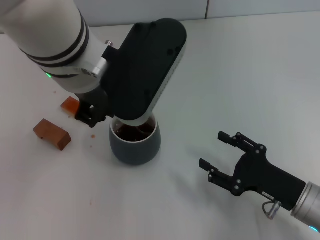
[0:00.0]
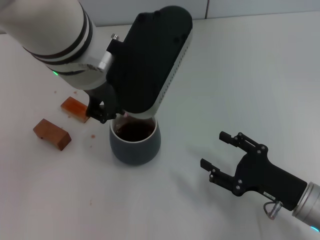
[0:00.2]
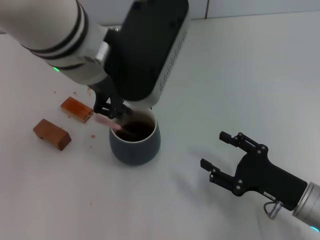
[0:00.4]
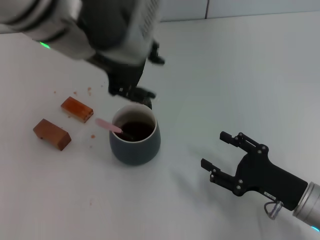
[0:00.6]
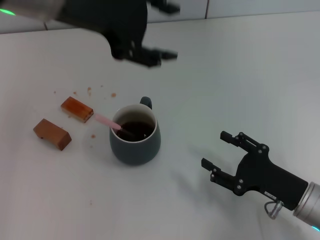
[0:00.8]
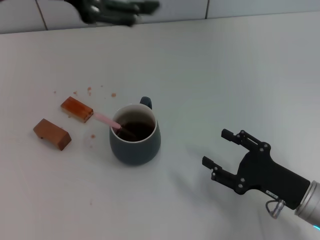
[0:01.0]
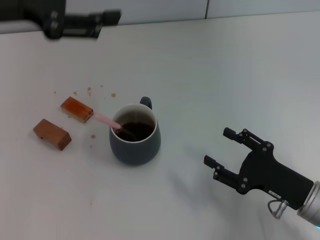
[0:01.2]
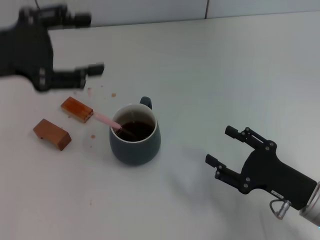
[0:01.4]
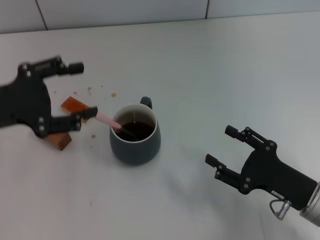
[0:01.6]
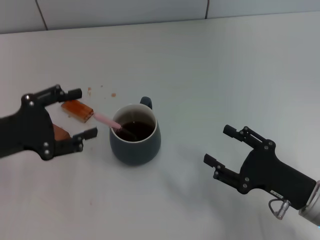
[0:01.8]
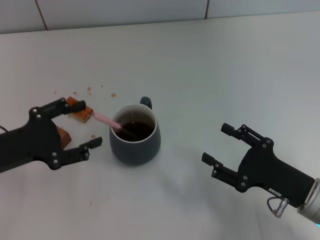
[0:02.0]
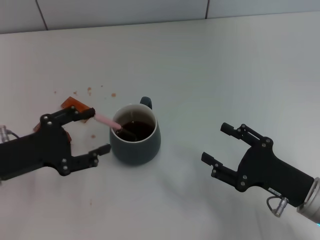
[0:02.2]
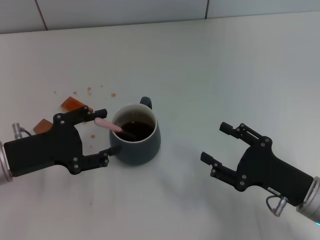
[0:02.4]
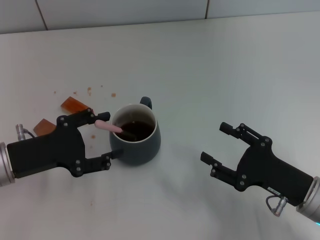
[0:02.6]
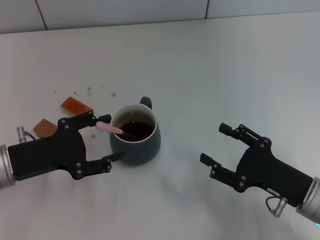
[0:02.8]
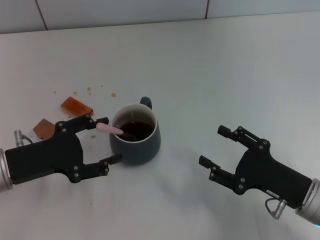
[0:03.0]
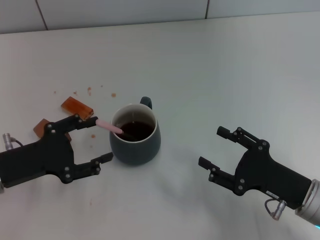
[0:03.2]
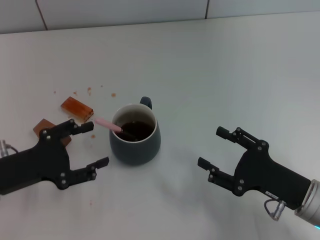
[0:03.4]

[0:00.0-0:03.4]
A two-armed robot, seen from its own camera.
Task of the whole recording: Move the grey cup to the center, lift the pink spoon, stir it three times in the cup, and put the spoon into the cup.
0:00.0 to 0:01.6: The left gripper is displaced to the left and downward by some 25 cm, and opens its fingers.
0:01.6 to 0:03.4: The left gripper goes about 10 cm downward.

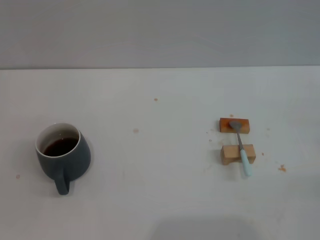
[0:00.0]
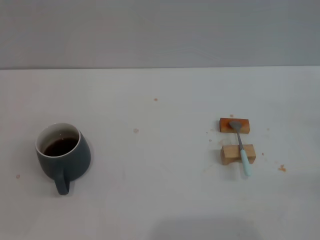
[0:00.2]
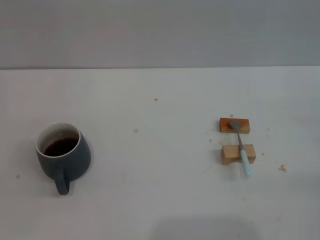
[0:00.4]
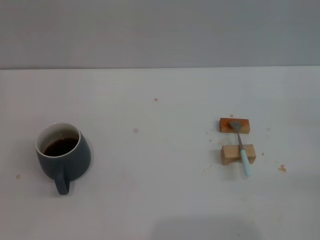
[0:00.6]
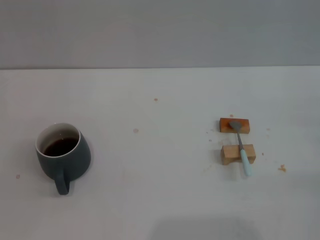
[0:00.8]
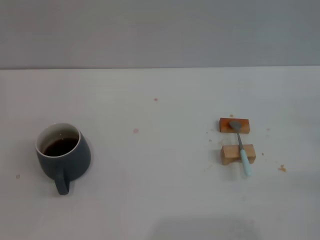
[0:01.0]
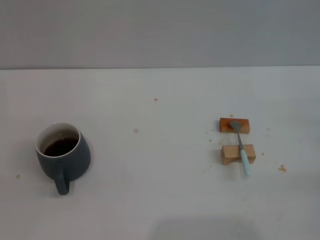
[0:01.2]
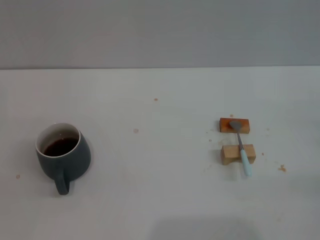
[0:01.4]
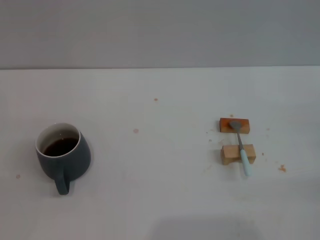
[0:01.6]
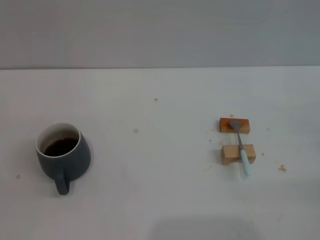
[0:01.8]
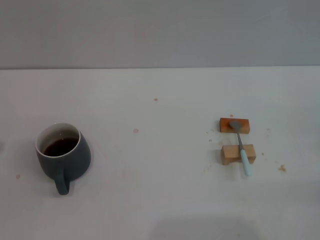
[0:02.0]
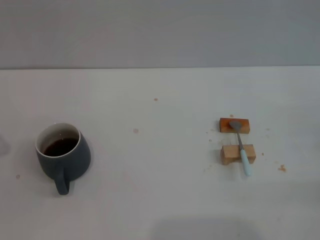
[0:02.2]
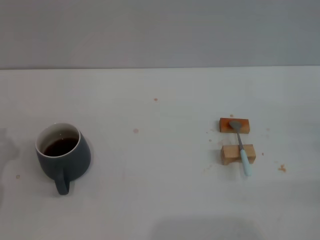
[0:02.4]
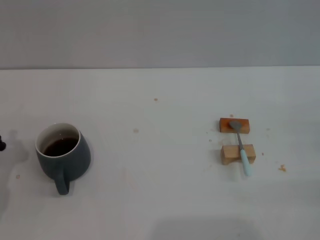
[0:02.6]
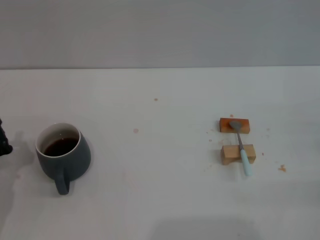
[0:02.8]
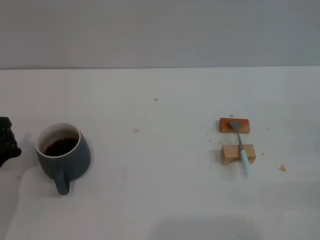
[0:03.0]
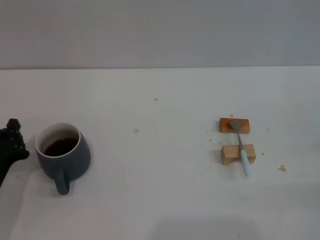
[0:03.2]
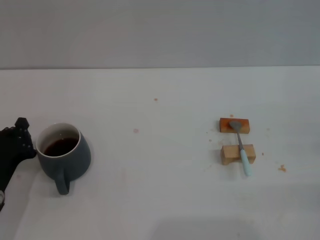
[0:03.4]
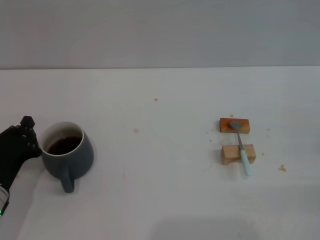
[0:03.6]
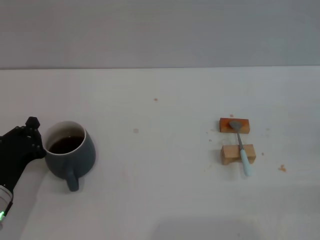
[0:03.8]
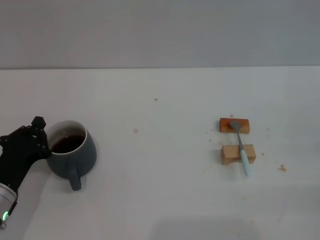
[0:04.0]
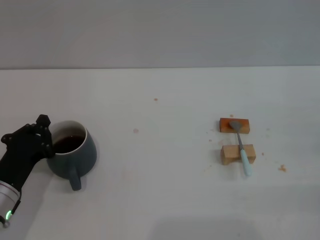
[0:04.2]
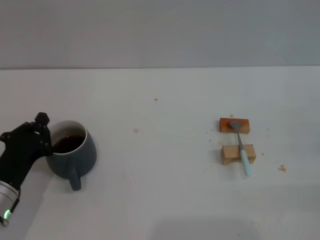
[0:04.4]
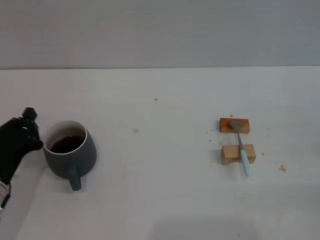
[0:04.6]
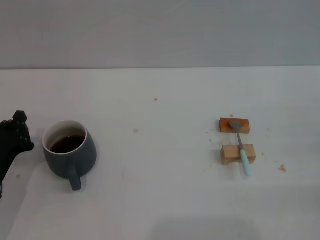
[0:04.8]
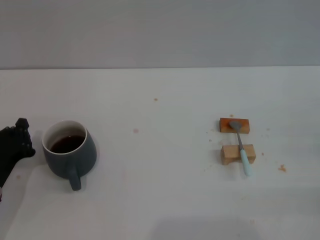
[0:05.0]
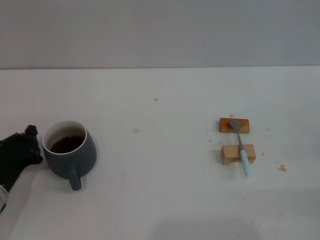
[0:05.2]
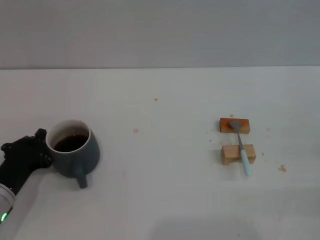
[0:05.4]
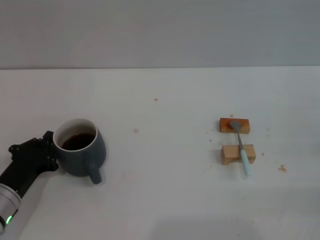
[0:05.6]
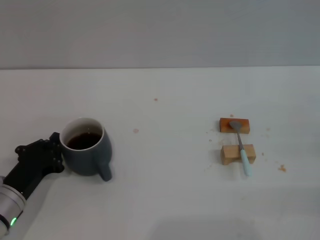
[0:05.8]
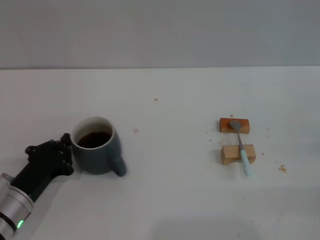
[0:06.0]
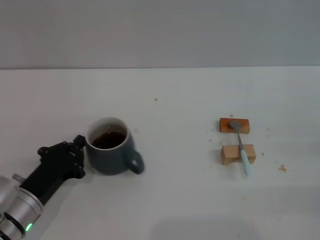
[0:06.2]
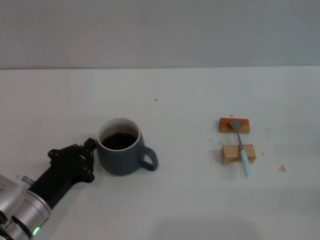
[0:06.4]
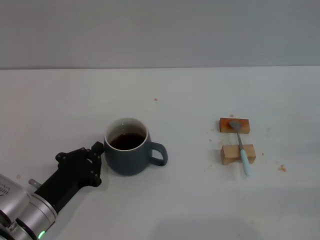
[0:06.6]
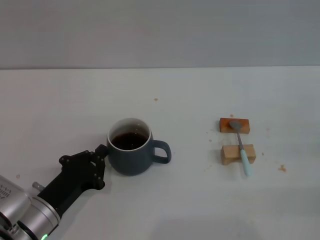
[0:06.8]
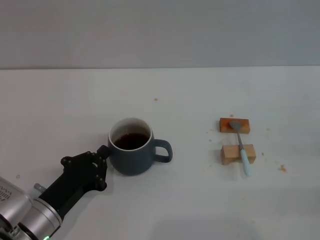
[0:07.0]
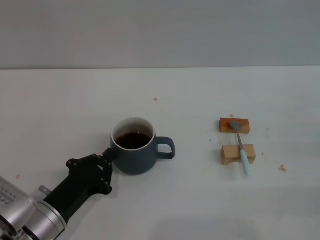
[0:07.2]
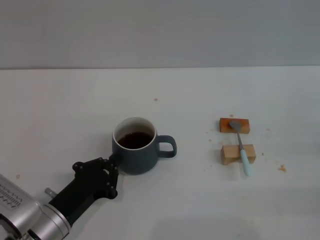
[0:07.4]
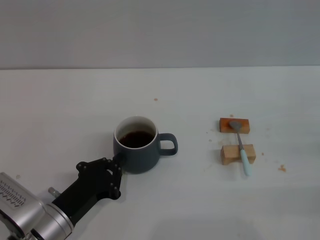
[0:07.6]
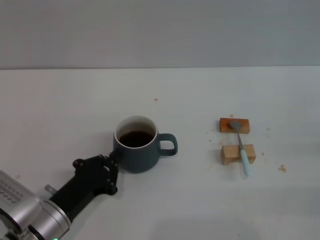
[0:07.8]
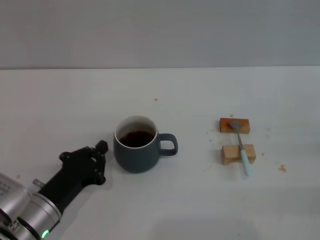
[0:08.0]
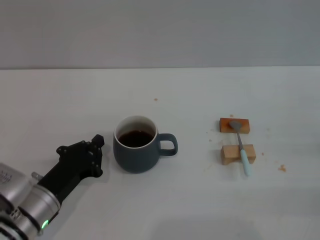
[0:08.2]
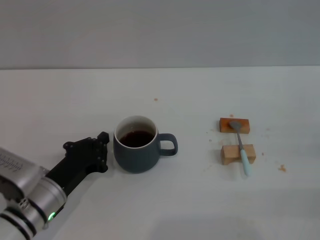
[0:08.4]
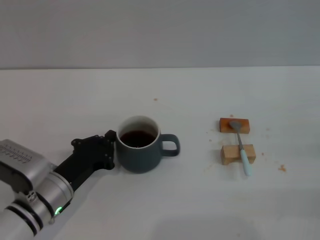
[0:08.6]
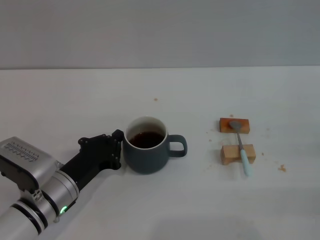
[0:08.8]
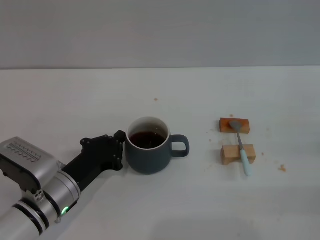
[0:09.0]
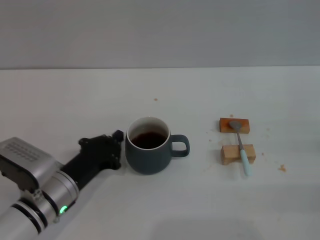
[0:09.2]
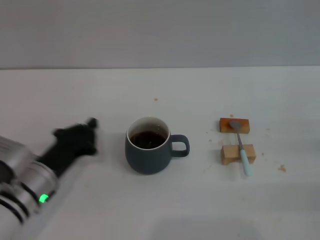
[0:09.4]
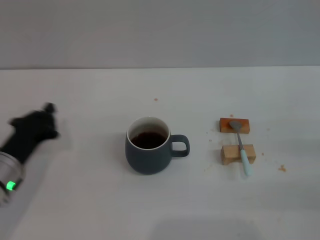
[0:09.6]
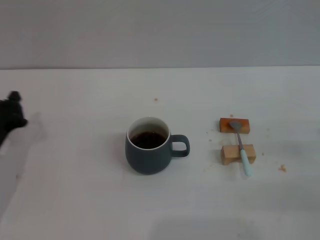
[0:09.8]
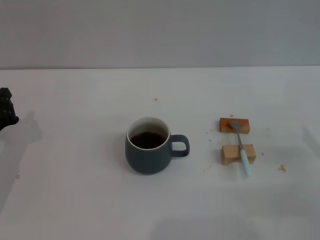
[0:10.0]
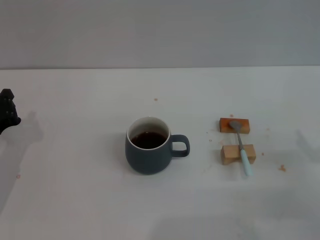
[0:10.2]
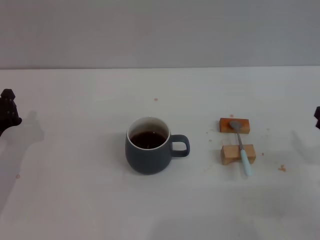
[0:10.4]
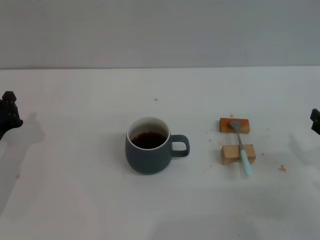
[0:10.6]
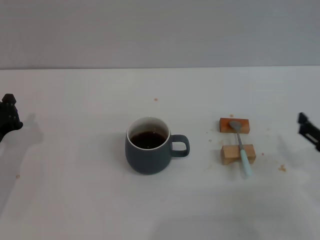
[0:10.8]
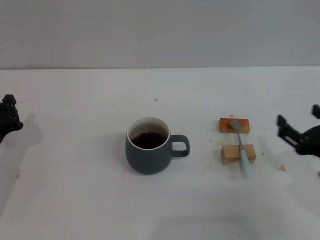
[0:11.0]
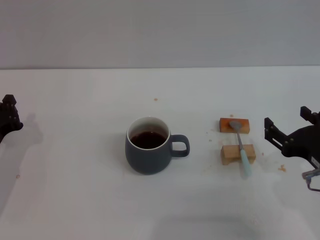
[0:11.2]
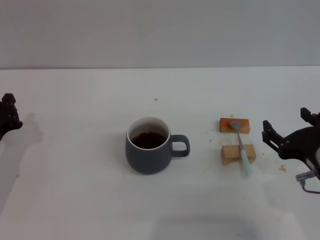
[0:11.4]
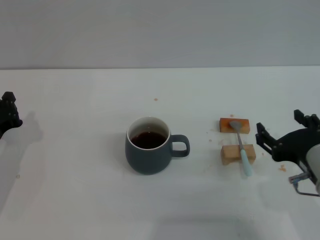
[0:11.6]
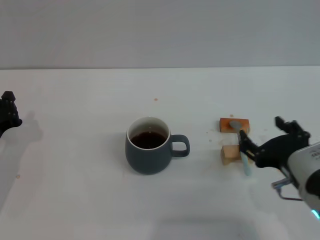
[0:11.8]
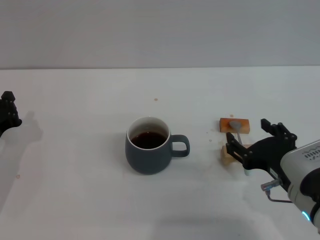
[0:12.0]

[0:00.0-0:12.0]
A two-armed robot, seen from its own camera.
Task of the whole recording: Move the grey cup to the center, lift the blue spoon, stir it three times in the cup, and put the spoon into the cup.
Step, 0:00.0 to 0:09.2: Move the cup with coffee to the center of view with the left gripper.
0:01.6 to 0:03.0: The left gripper goes approximately 5 cm to the right.
0:03.0 to 0:06.0: The grippers make only small movements.
0:06.0 to 0:07.6: The left gripper moves to the right, approximately 5 cm.
0:07.6 to 0:09.0: The left gripper moves forward, roughly 5 cm.
0:09.0 to 0:10.4: The two grippers go roughly 10 cm to the left.
0:10.4 to 0:12.0: The right gripper goes approximately 15 cm to the left.

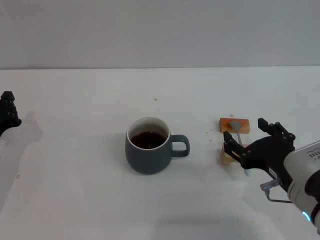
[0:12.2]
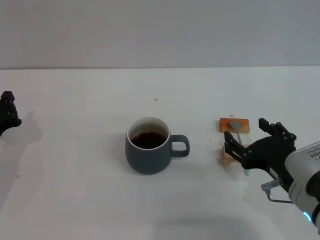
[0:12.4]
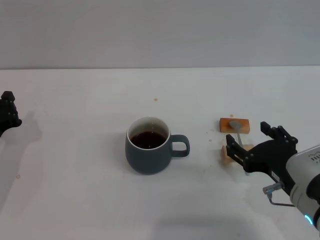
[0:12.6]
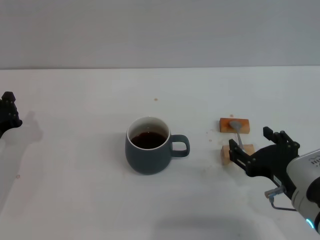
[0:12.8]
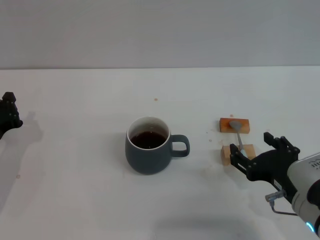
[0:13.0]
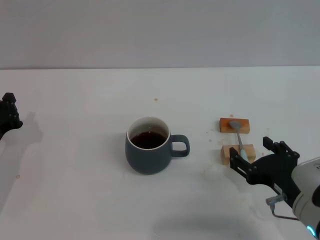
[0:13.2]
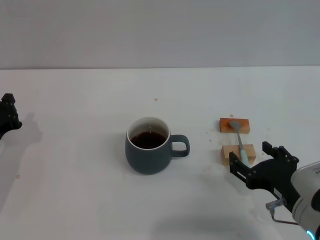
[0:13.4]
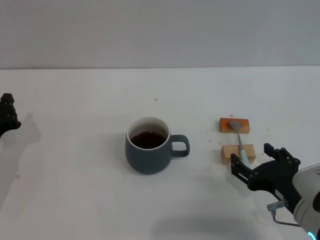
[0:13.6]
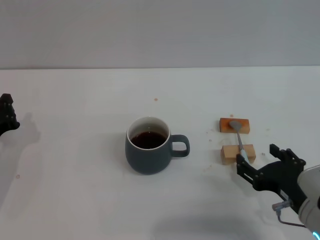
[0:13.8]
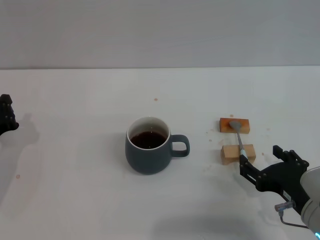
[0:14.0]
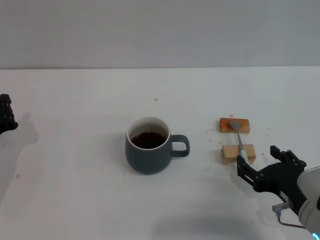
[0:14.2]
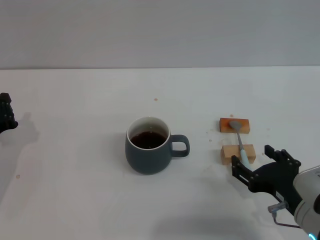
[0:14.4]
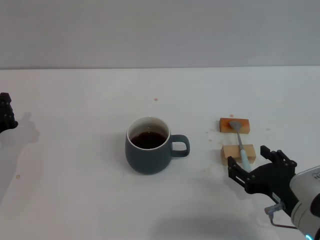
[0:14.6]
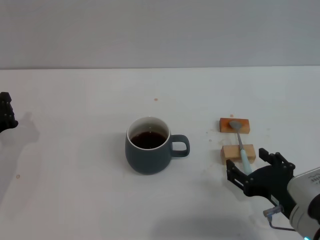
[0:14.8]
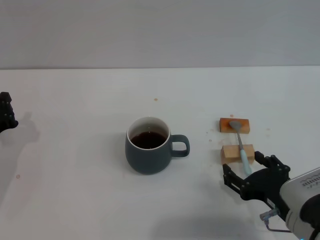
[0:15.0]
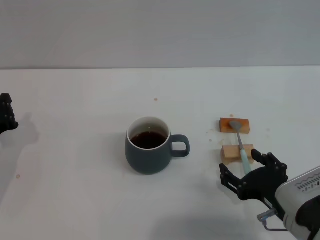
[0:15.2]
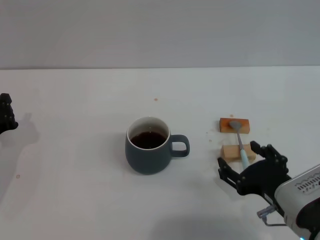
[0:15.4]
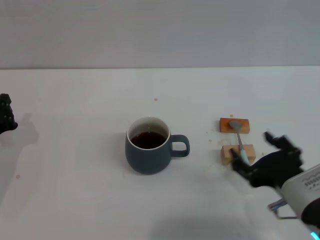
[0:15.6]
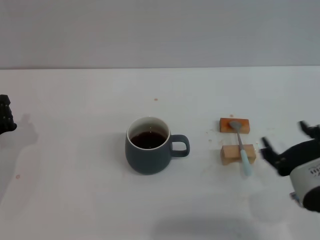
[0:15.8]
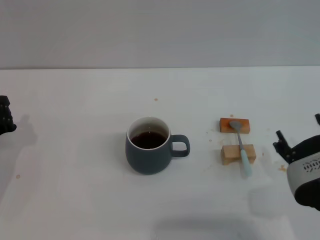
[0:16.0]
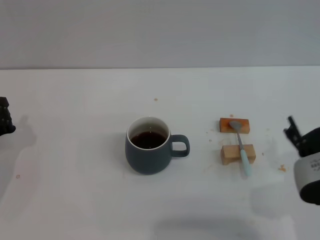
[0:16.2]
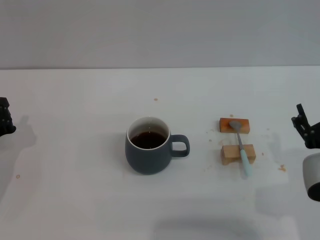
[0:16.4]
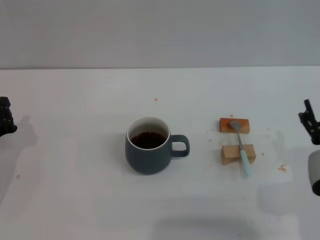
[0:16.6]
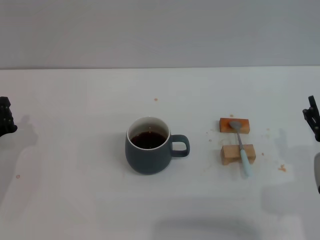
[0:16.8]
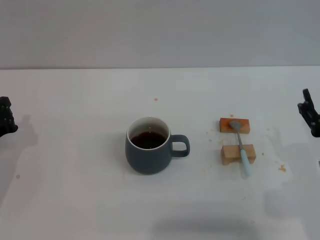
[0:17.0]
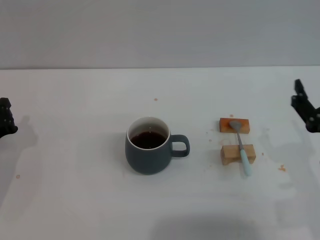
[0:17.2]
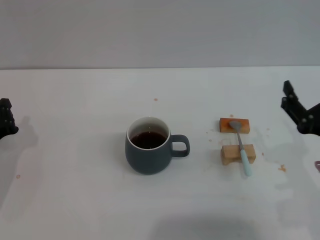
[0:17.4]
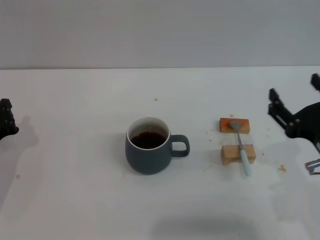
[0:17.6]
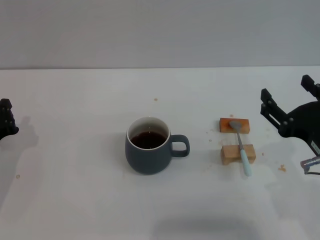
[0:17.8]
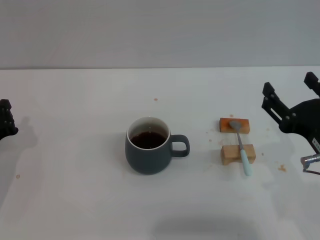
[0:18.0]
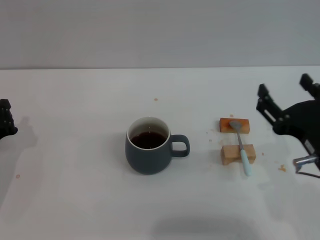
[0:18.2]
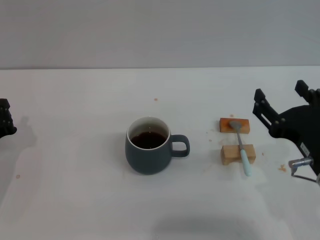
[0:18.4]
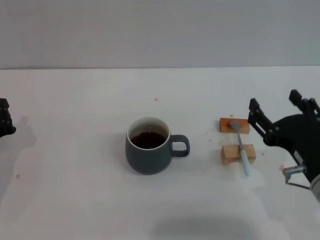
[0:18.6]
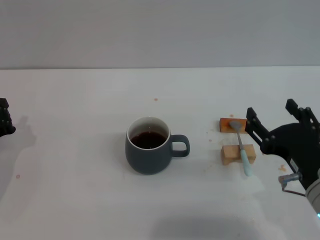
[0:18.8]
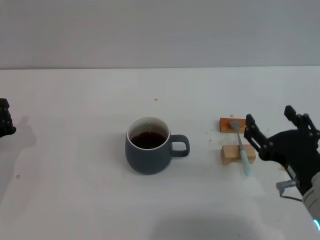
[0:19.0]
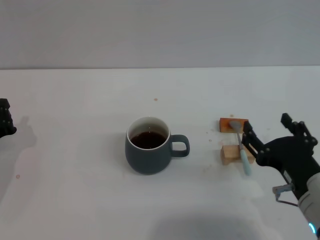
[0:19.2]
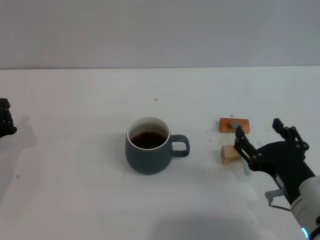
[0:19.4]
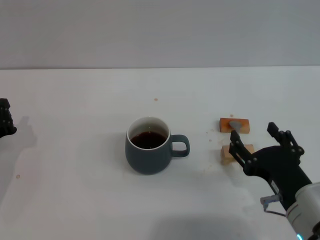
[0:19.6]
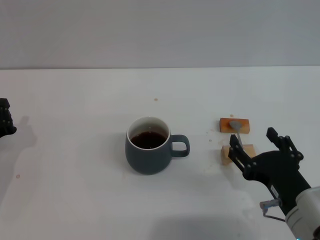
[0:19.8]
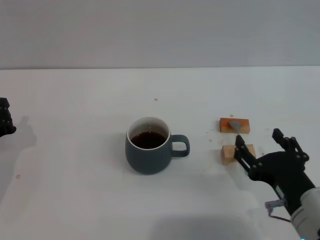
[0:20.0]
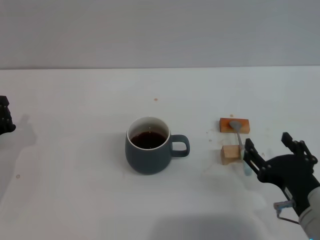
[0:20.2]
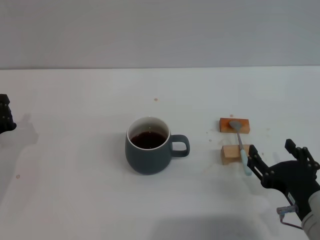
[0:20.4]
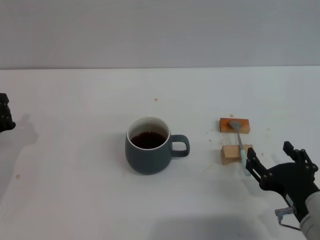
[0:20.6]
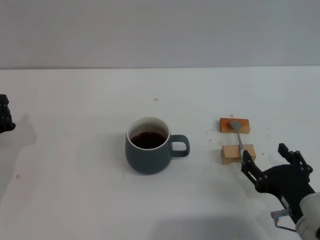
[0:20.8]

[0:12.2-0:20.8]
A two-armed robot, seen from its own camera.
Task of the whole recording: Move the grey cup to the center, lift the blue spoon, stir it three times in the cup, and put the spoon into the cup.
0:12.2 to 0:13.6: There are only small adjustments of the grippers.
0:13.6 to 0:15.0: Neither gripper changes place.
0:15.0 to 0:16.6: The right gripper goes roughly 5 cm upward.
0:18.0 to 0:19.4: The right gripper heads downward, covering approximately 5 cm.
0:19.4 to 0:20.8: The grippers move only a little.
